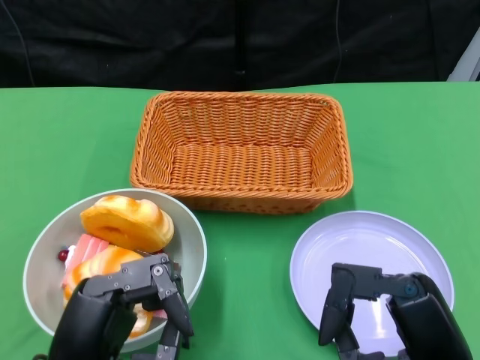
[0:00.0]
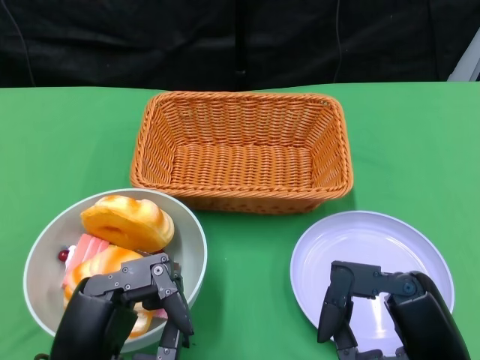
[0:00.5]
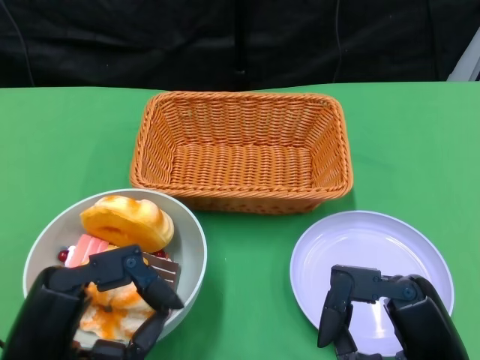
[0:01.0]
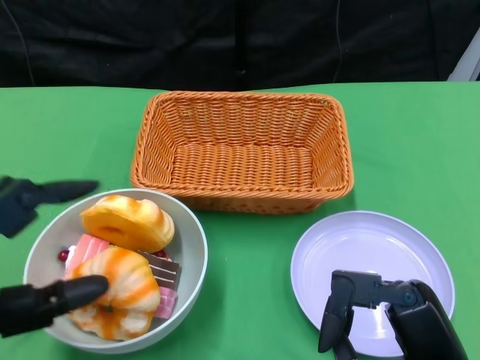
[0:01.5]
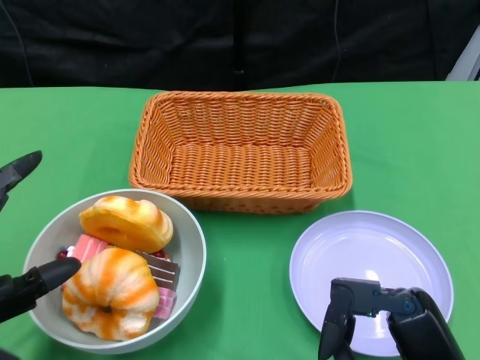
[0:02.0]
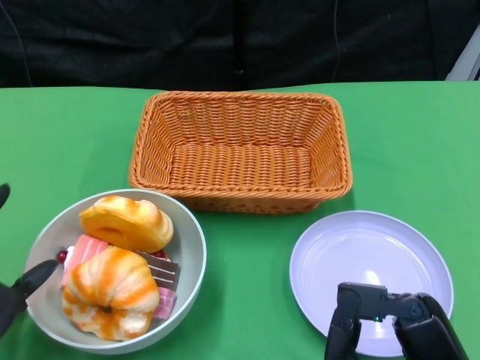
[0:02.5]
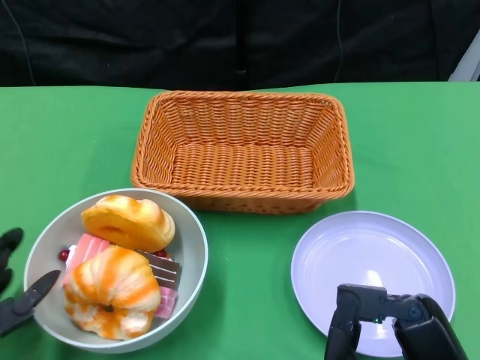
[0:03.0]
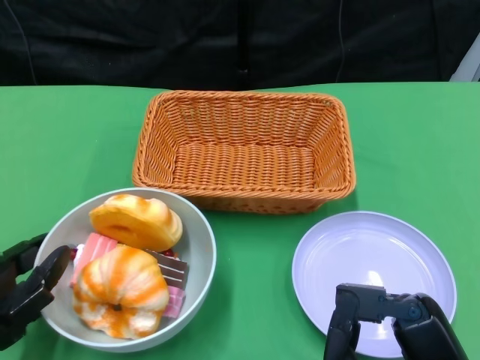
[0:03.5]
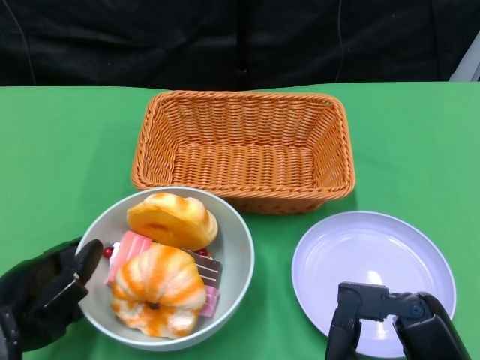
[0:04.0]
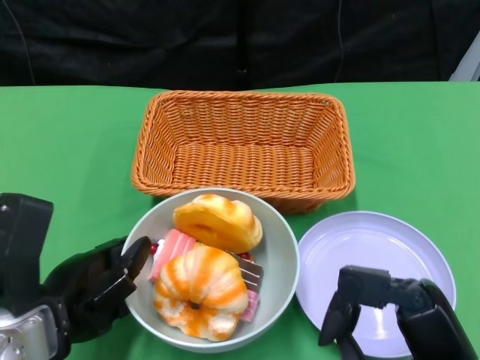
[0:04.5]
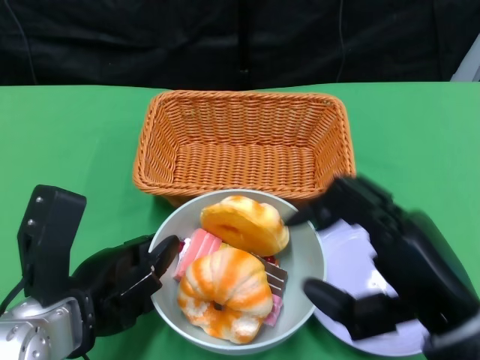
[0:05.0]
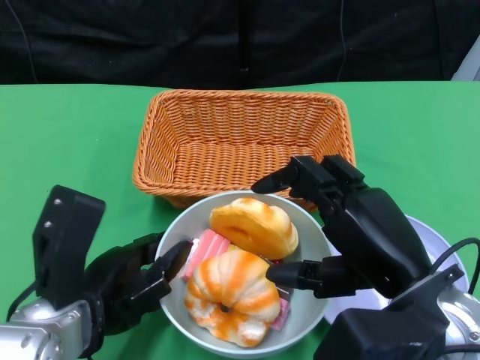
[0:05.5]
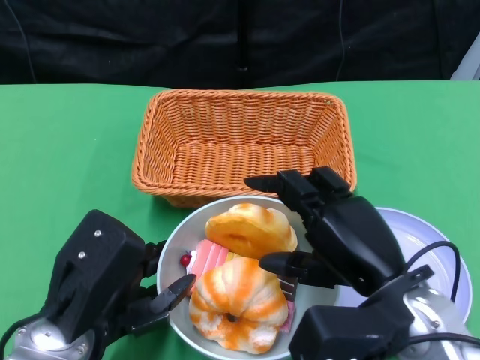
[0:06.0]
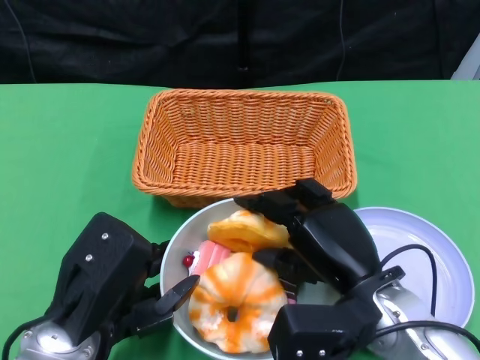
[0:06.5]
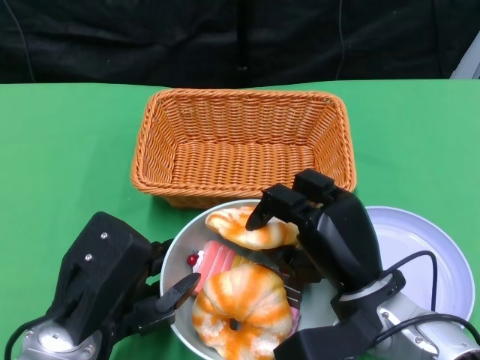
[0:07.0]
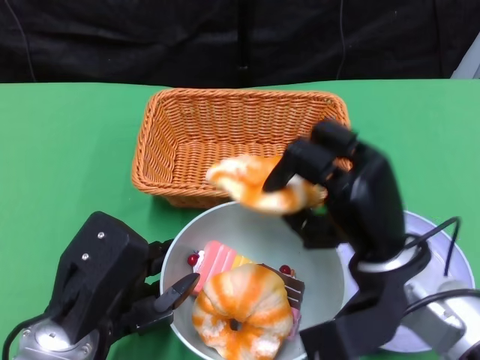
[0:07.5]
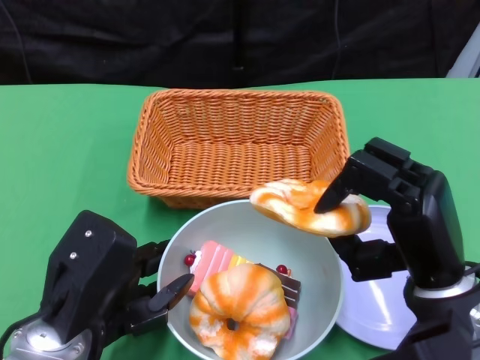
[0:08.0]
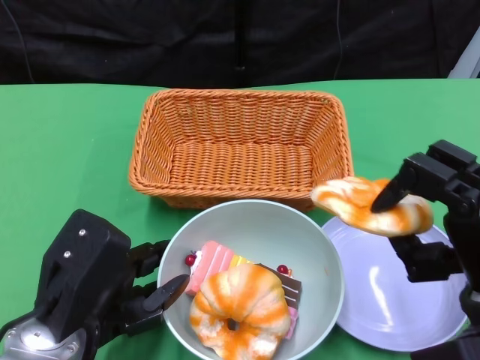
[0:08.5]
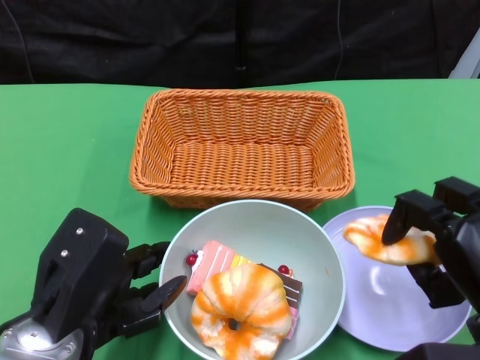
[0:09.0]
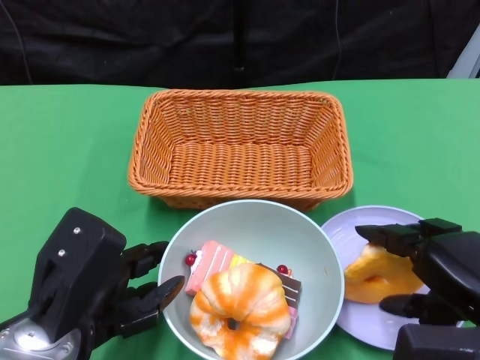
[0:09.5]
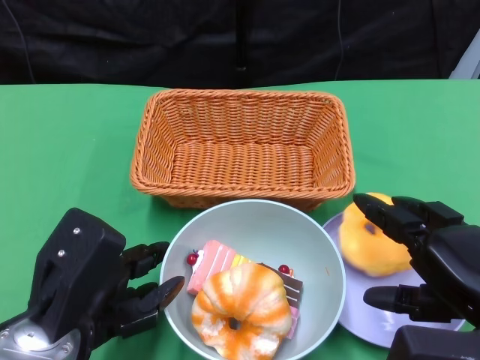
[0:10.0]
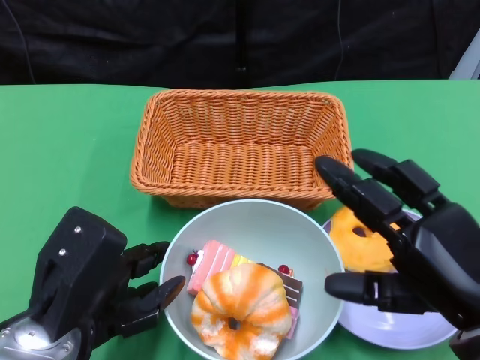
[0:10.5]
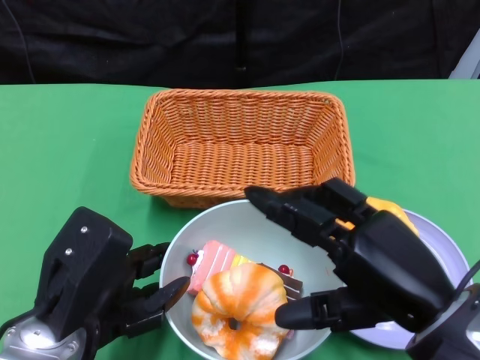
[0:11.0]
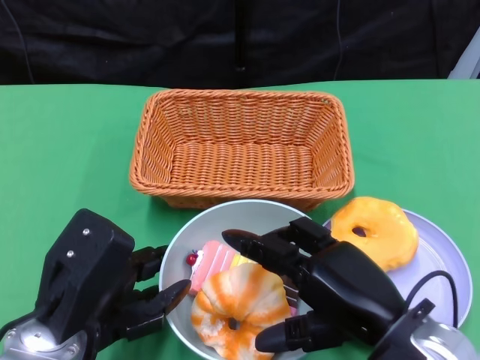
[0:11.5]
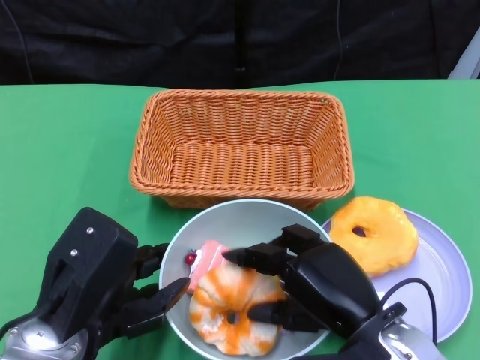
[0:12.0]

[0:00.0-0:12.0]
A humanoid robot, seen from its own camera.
Step, 0:00.0 to 0:05.0: Push the bowl to the center of the table using the left gripper.
0:02.0 to 0:04.0: The left hand is displaced forward by about 5 cm.
0:04.0 to 0:06.0: The right hand goes approximately 10 cm forward. Meanwhile the left hand travels to the right by about 5 cm.
0:08.0 to 0:10.0: The right hand shifts approximately 5 cm to the right.
0:10.0 to 0:12.0: The right hand is displaced to the left by about 10 cm.

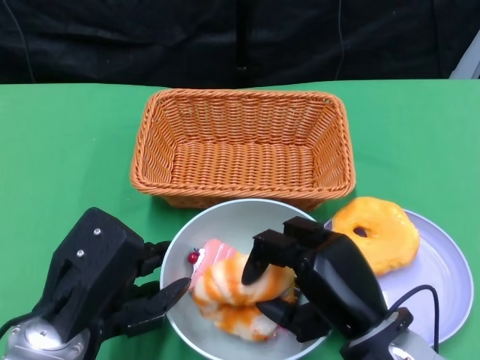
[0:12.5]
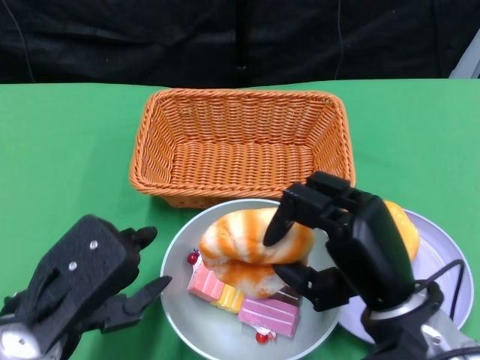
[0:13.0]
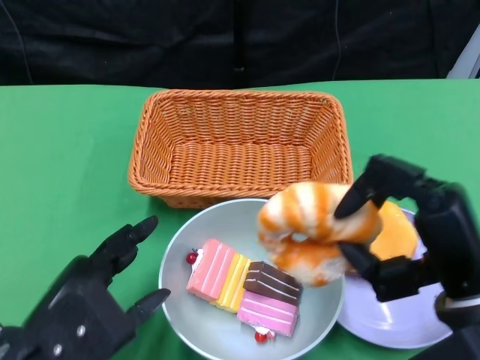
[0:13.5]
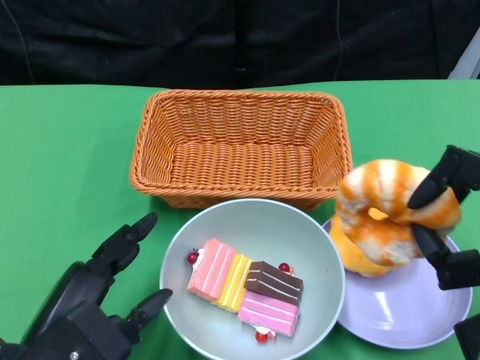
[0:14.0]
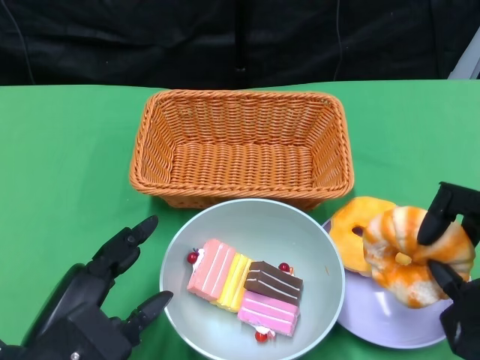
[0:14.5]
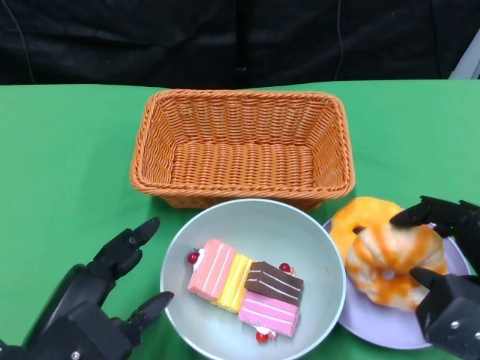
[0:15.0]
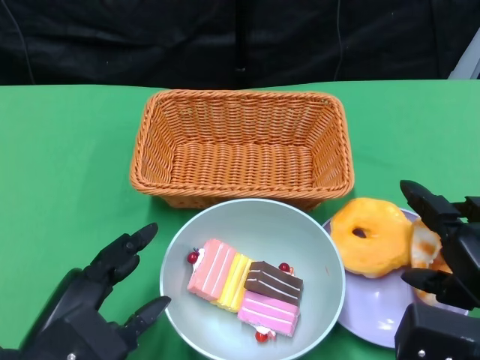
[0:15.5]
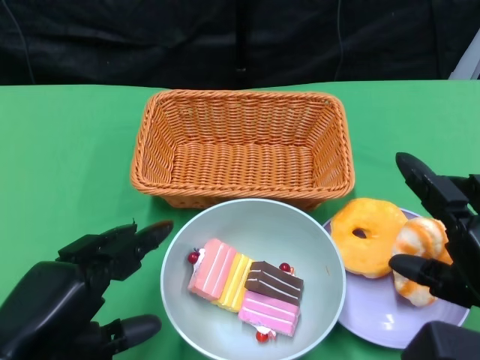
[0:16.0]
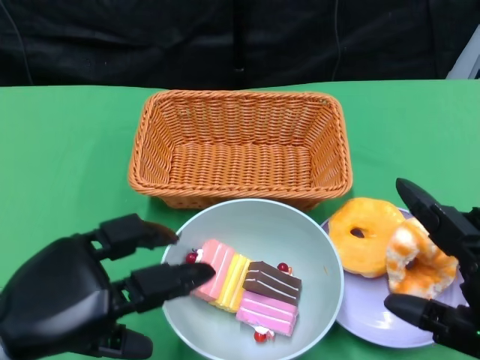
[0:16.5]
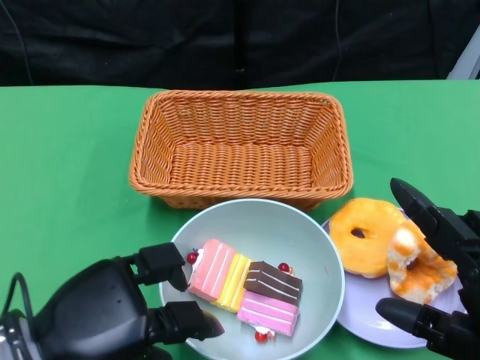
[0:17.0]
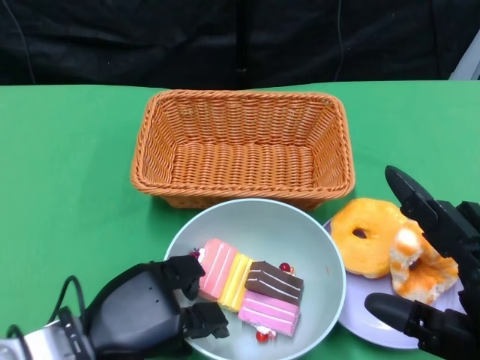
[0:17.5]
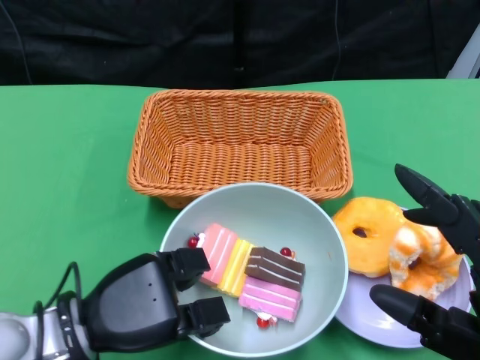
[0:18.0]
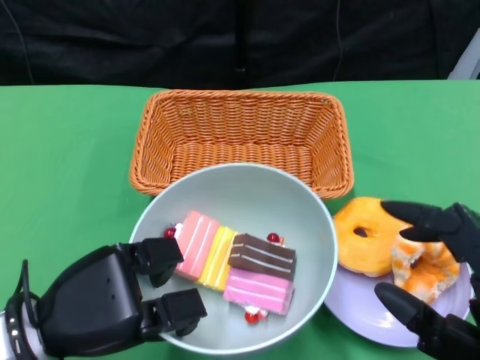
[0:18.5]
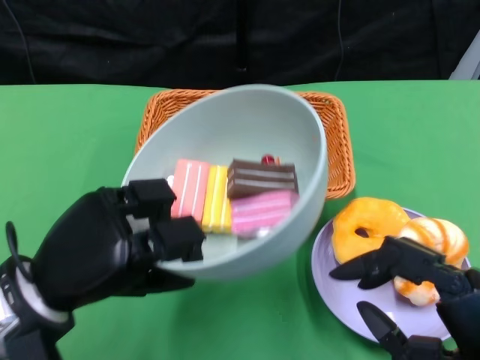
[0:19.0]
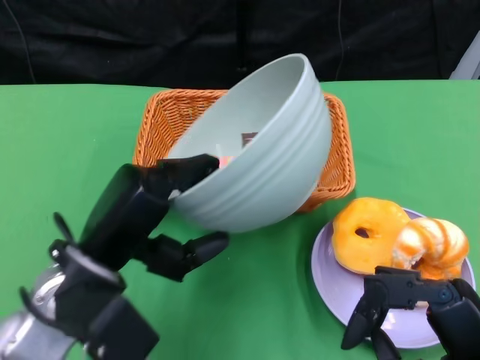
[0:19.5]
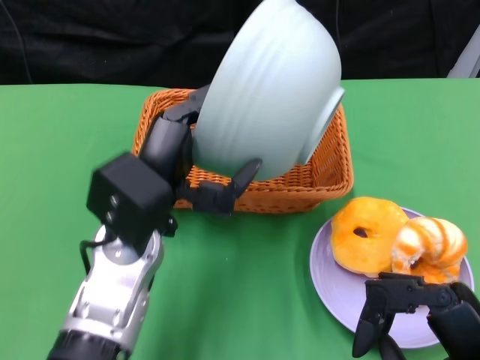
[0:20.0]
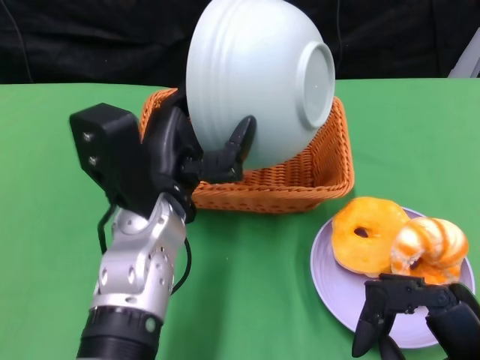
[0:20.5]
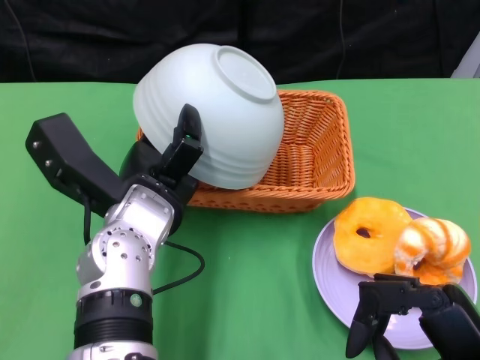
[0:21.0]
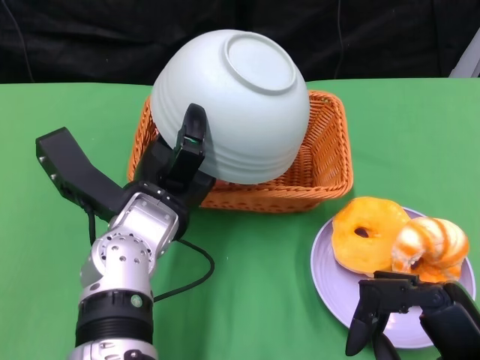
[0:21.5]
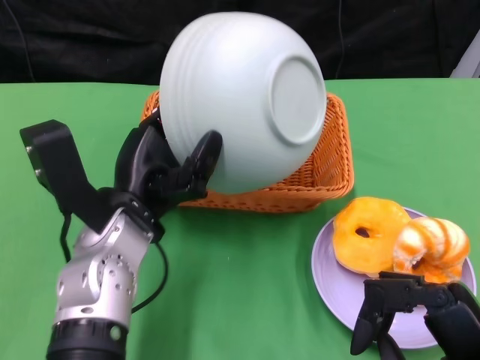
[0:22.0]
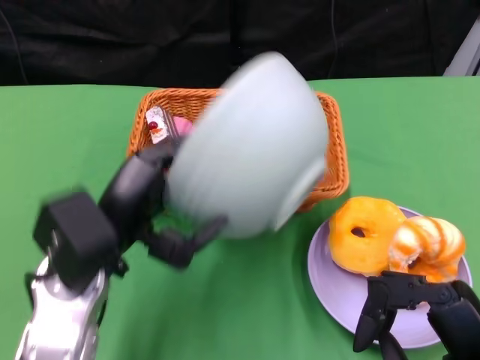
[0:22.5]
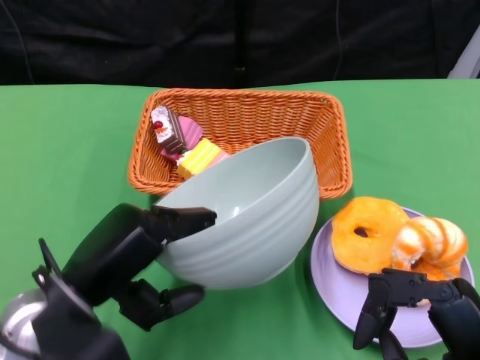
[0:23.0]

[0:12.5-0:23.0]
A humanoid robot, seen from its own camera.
Step, 0:12.5 to 0:15.0: Pick up the bread with the right gripper and place it on the plate.
Step, 0:16.0 to 0:17.5: Grasp the bowl with the left gripper.
Step, 0:18.0 to 0:21.0: Pour the cake into the basket with the left gripper.
0:12.5 to 0:14.5: The right hand heads to the right and upward, covering about 15 cm; the left hand moves approximately 5 cm.
0:14.5 to 0:16.5: The right hand is displaced backward by approximately 5 cm.
0:19.0 to 0:21.0: The left hand moves to the right and forward, some 15 cm.
0:21.0 to 0:23.0: The left hand is displaced to the left and backward by about 10 cm.

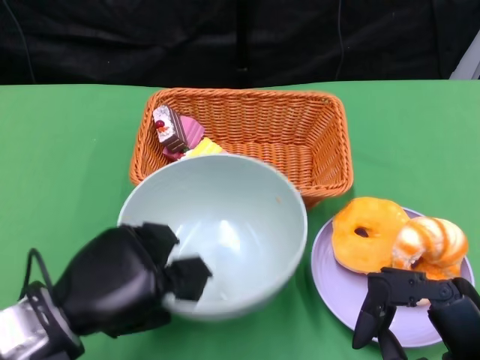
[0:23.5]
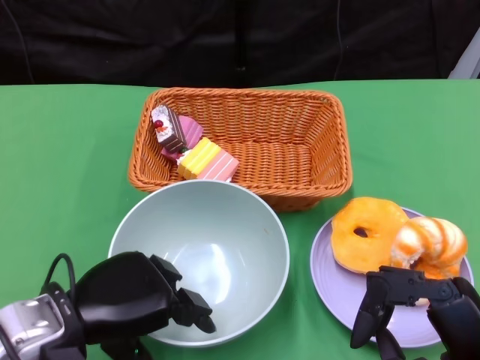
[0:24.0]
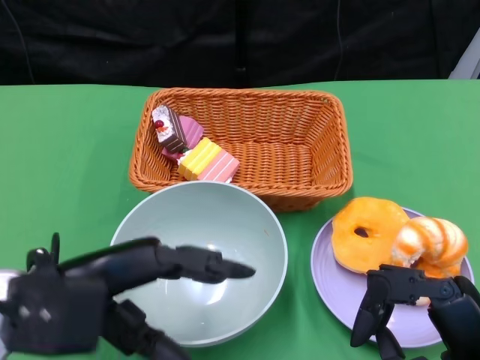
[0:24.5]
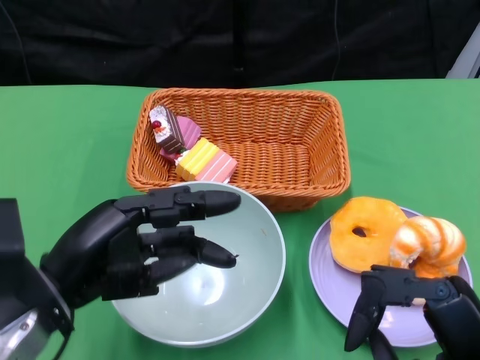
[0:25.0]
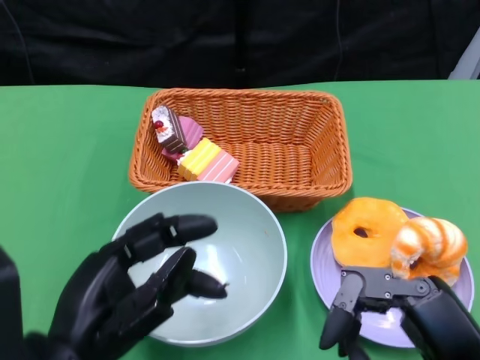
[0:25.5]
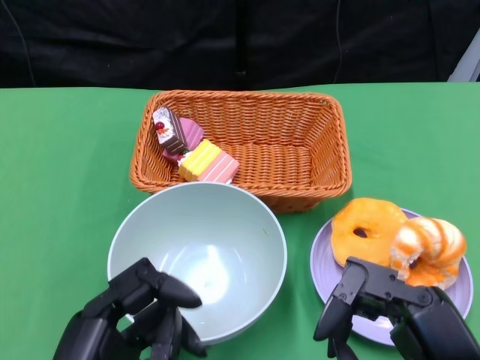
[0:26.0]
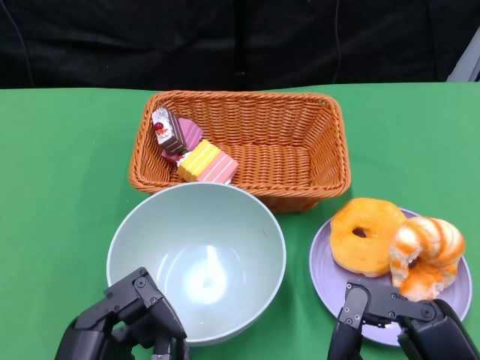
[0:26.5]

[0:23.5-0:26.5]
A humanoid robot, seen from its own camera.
0:25.0 to 0:26.5: The left hand is displaced backward by about 10 cm.
